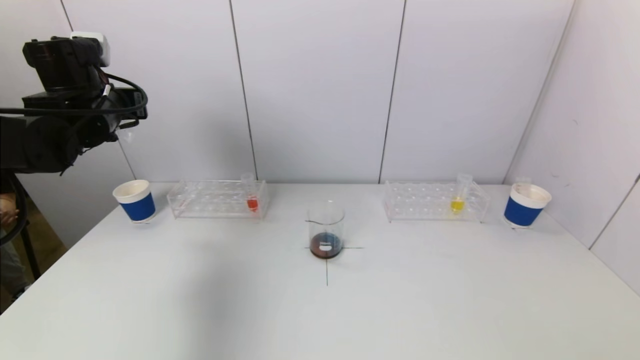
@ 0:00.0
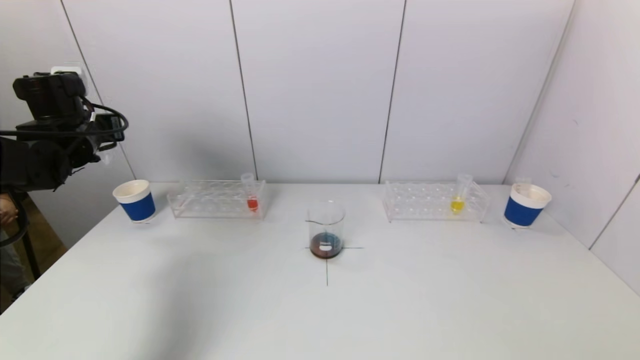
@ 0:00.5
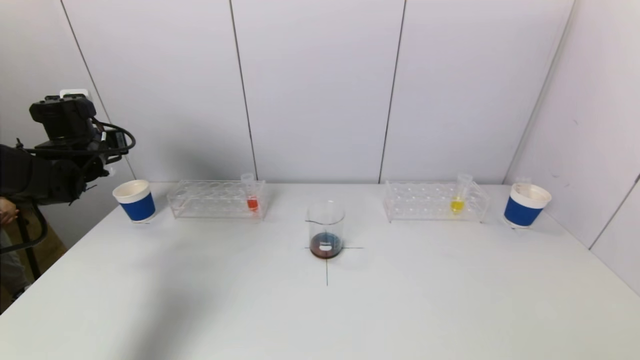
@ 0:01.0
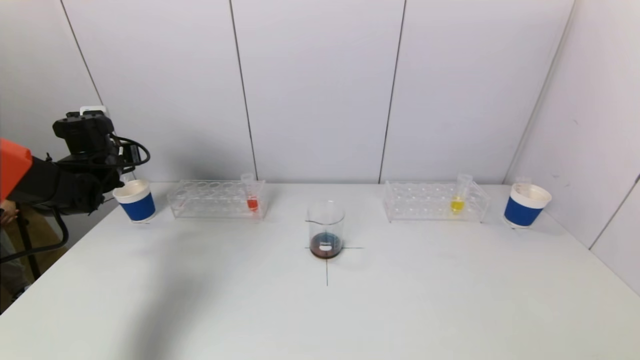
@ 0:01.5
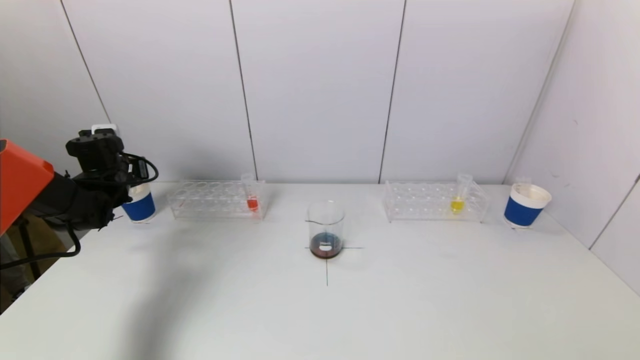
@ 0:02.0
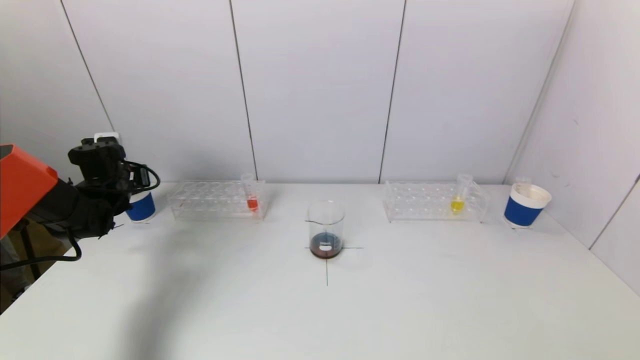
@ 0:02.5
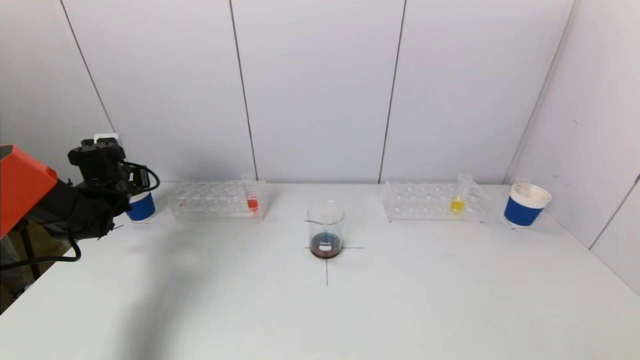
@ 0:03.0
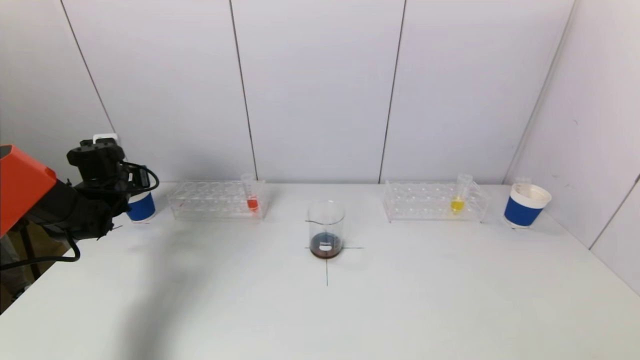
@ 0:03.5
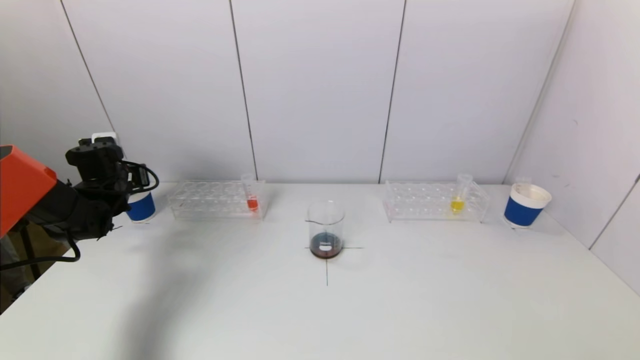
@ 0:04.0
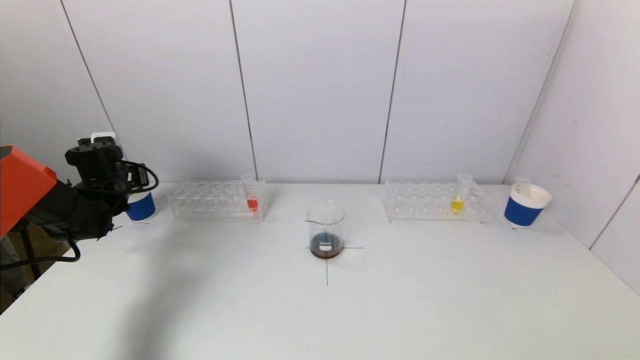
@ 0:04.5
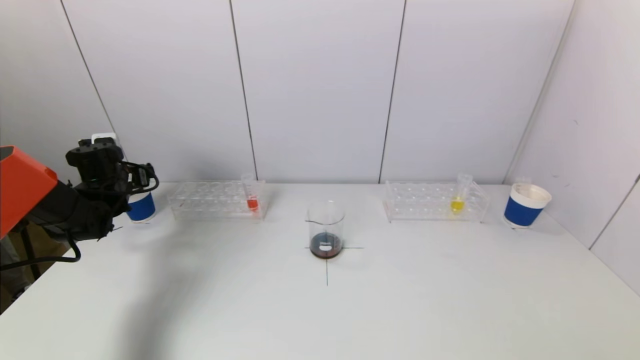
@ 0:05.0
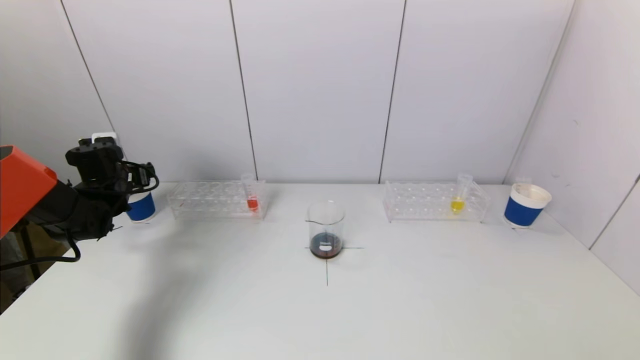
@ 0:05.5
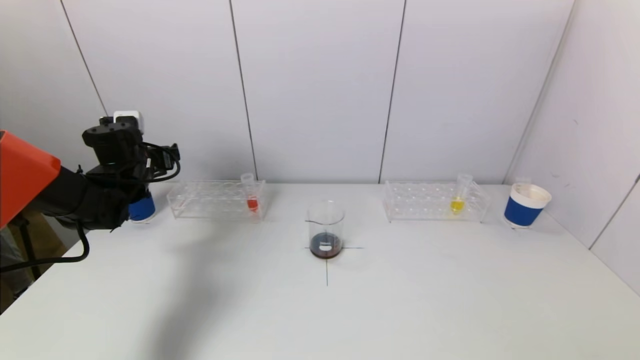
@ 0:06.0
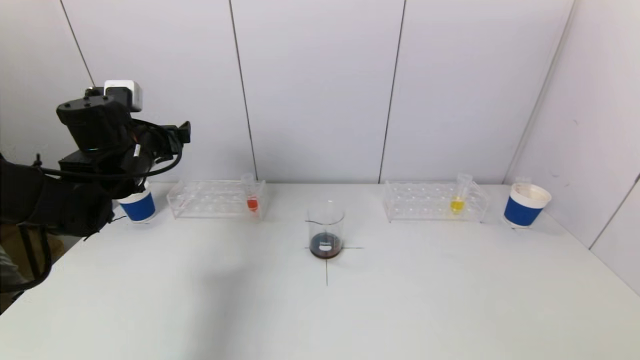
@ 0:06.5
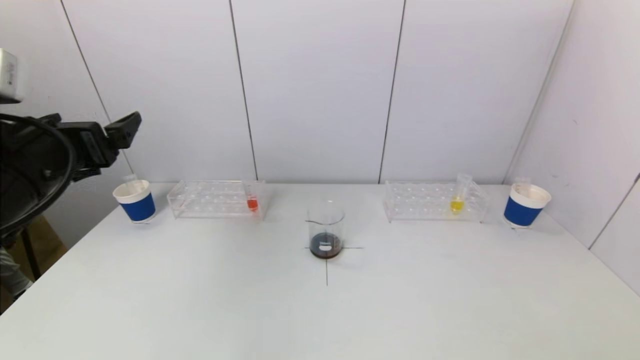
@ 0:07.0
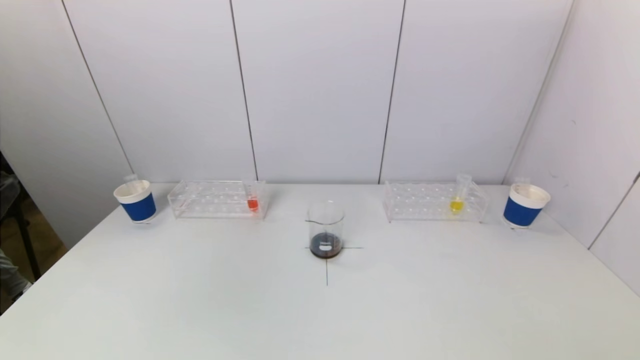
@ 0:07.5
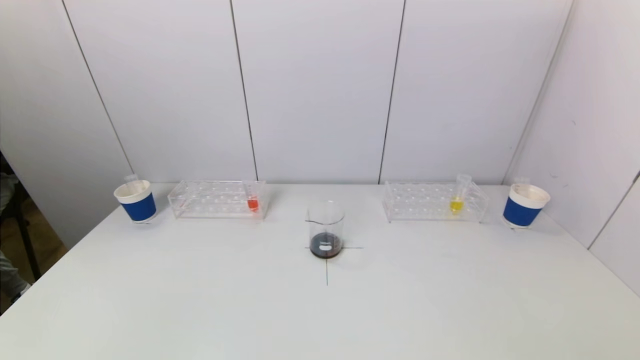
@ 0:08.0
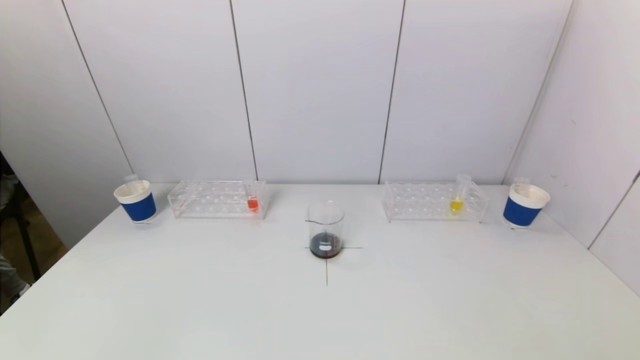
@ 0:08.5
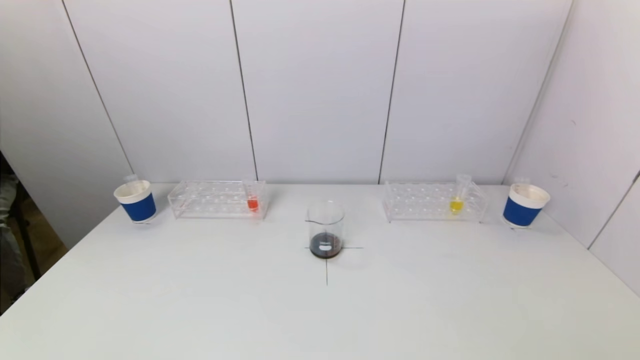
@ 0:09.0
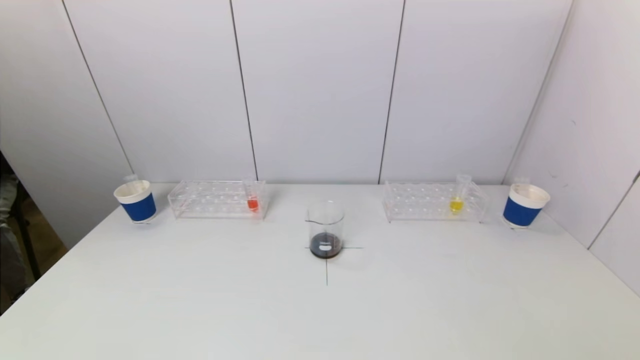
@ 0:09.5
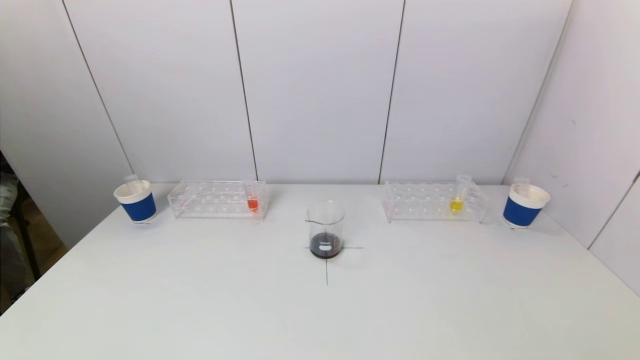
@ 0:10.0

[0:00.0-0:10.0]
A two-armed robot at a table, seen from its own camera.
Task of the whole recording: pick up a test tube with pigment on left test tube rack and a test tube with pigment on right test tube rack by grippers and pour them into the beaker.
Step, 0:00.0 to 0:04.5: Place the test tube into the paper cup with the left gripper.
0:00.0 to 0:02.0: The left gripper moves downward and to the left, approximately 15 cm.
0:02.0 to 0:04.0: There are only small adjustments of the grippers.
0:04.0 to 0:06.0: The left gripper shifts some 5 cm to the right, and opens.
0:06.0 to 0:08.0: The left gripper goes about 40 cm backward.

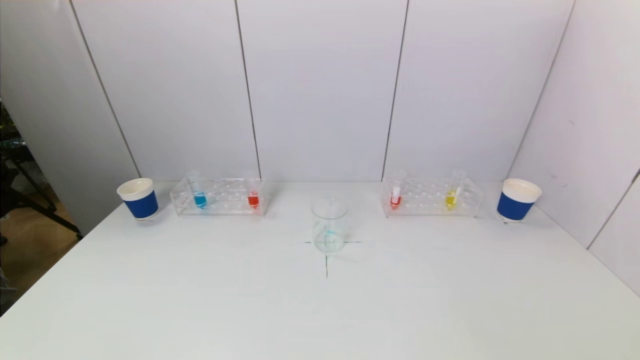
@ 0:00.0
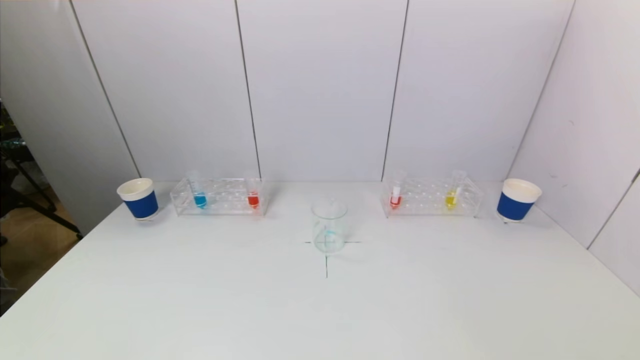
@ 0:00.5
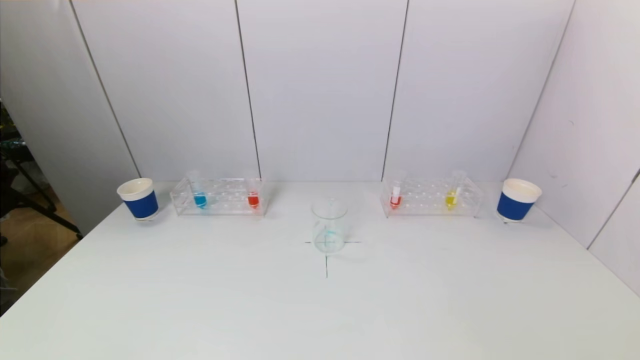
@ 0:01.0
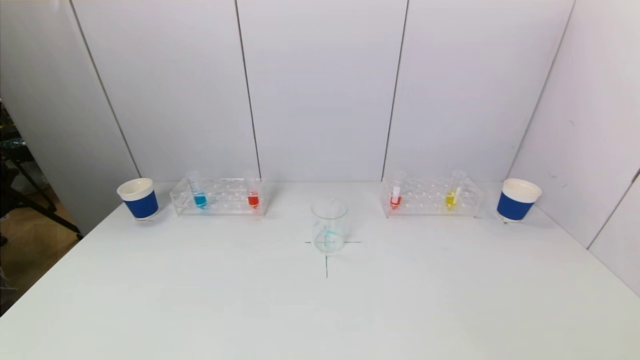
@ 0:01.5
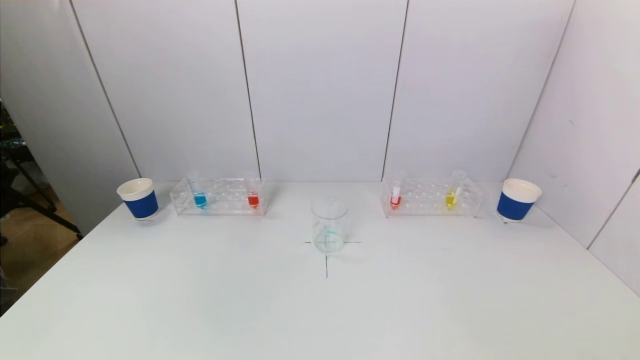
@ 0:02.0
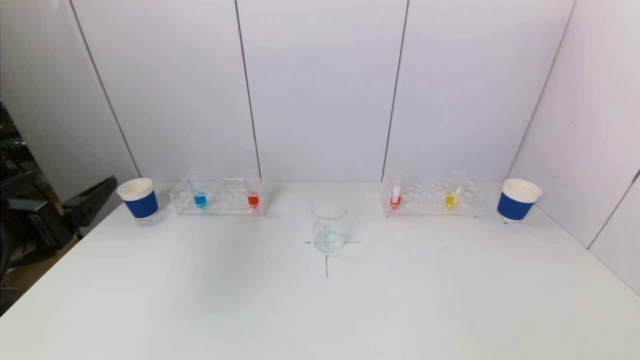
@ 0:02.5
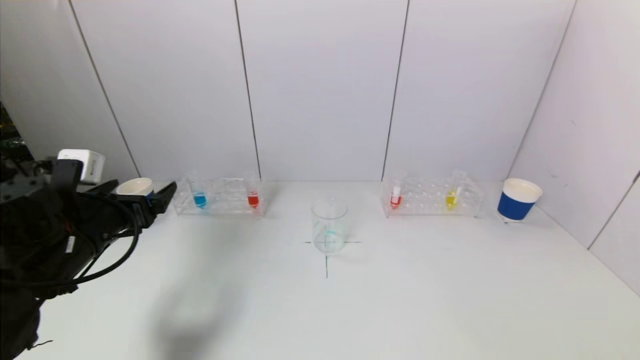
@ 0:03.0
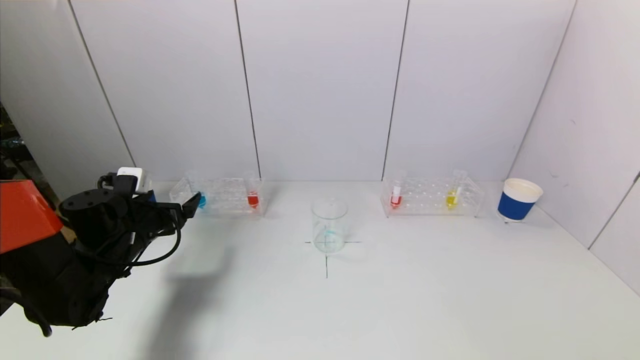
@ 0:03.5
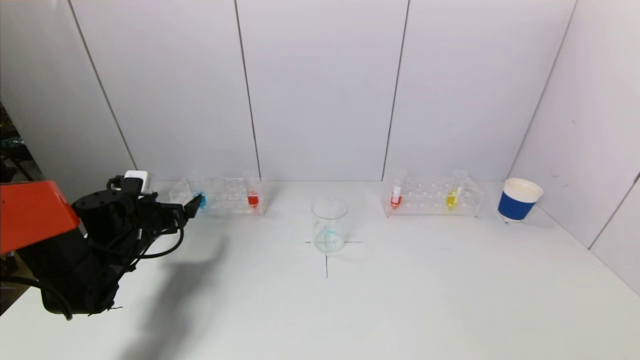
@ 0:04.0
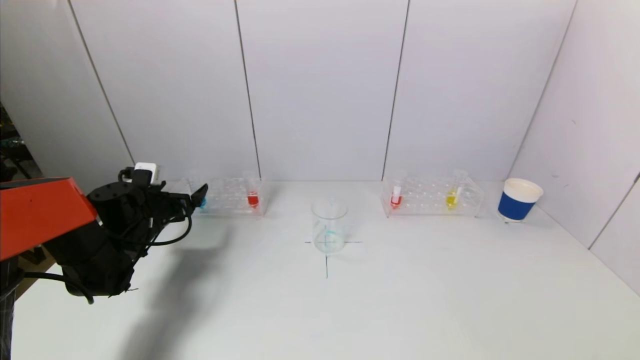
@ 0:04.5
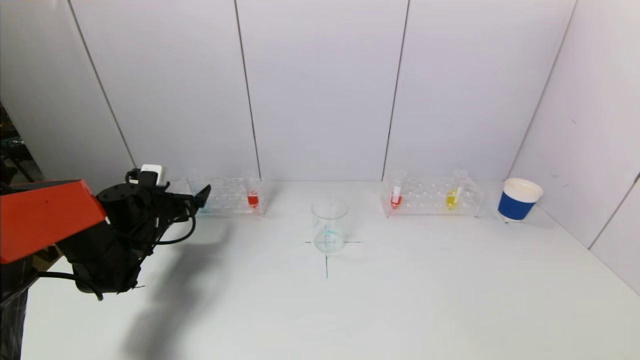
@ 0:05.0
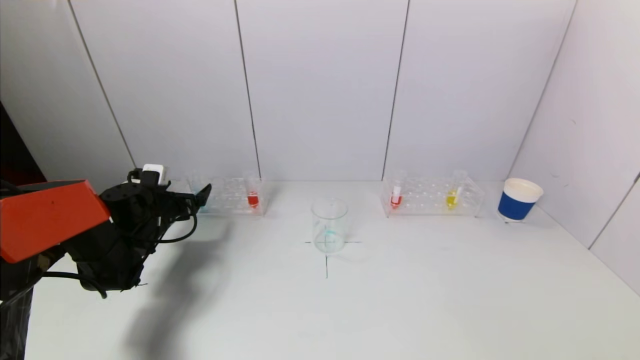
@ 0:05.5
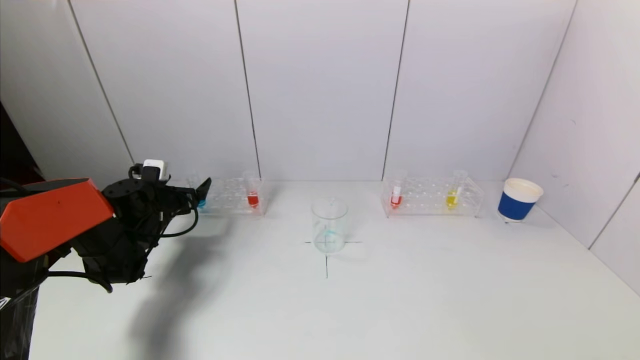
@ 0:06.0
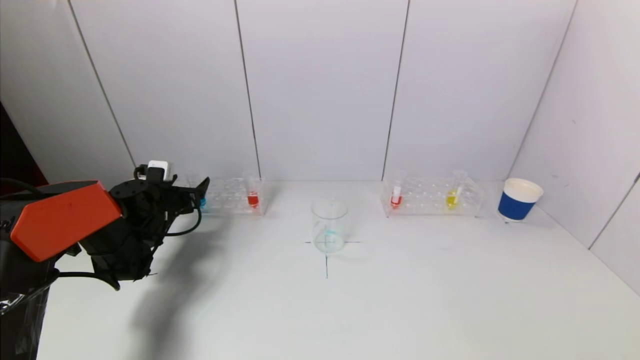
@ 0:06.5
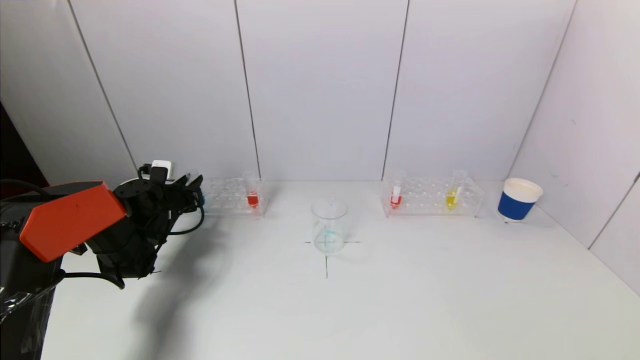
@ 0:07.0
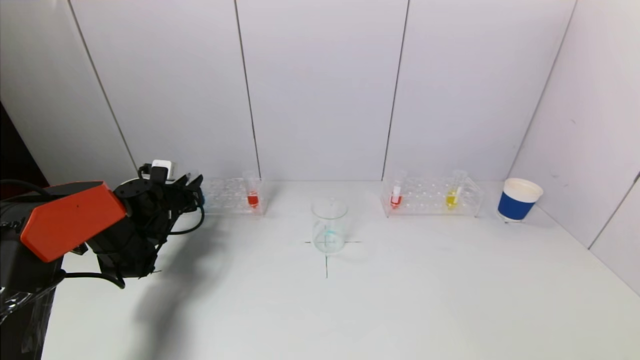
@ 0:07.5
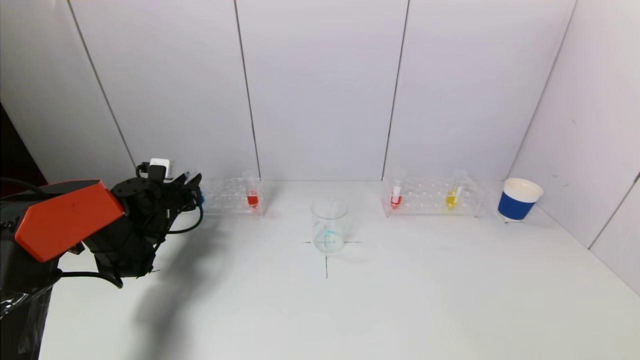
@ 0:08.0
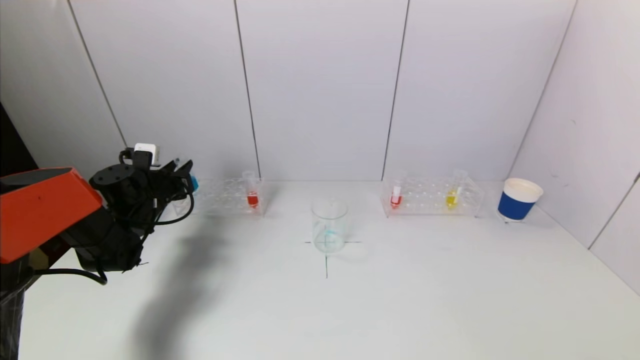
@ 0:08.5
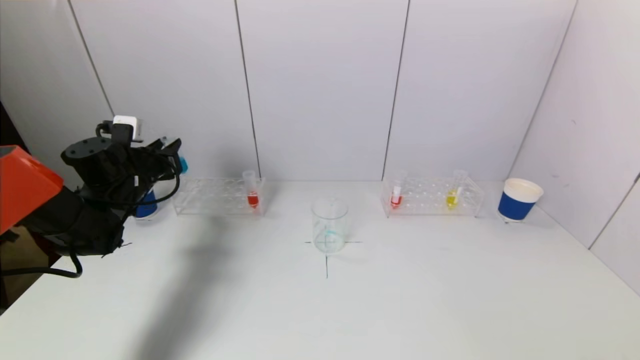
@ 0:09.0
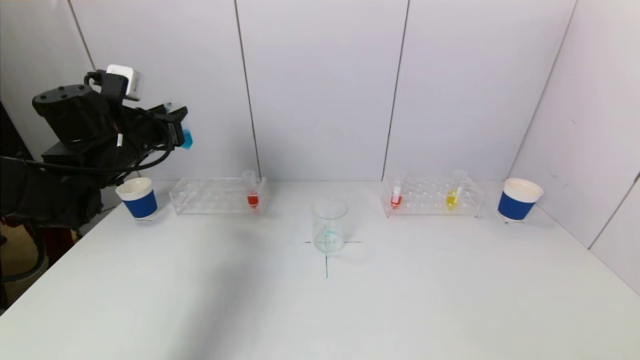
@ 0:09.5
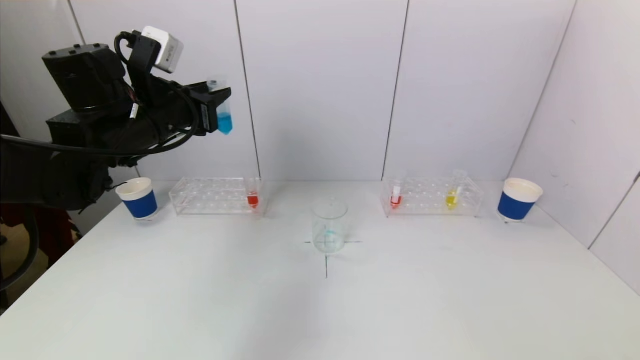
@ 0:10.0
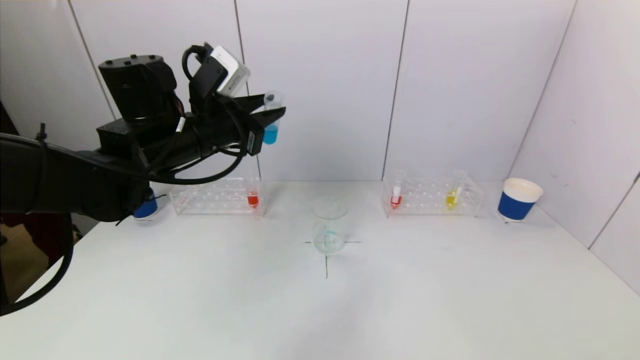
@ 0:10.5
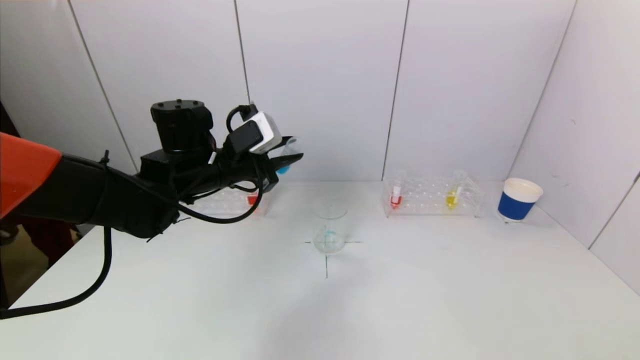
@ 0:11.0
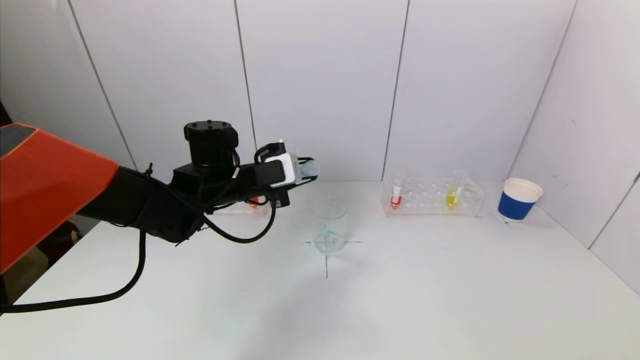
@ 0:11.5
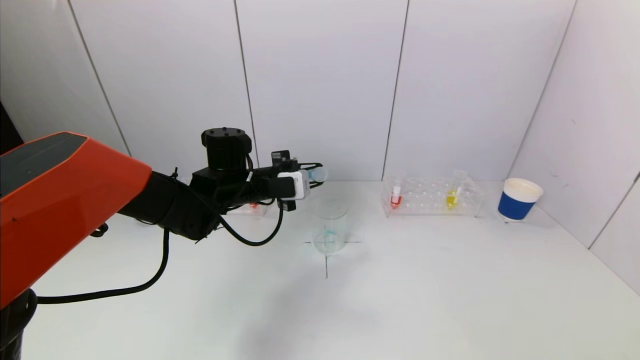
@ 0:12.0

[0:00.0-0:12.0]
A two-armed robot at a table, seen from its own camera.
Task of the whole recording: pick up a test tube with pigment on left test tube rack and a test tube with pigment on right test tube rack by grippers and pour them into the beaker.
Step, 0:00.0 to 0:07.0: Grasp the blue reagent with the left gripper.
0:02.0 to 0:04.0: The left gripper goes approximately 35 cm forward and downward.
0:04.0 to 0:06.0: The left gripper moves forward, roughly 5 cm.
0:06.0 to 0:08.0: The left gripper closes up.
0:08.0 to 0:10.0: The left gripper travels upward, to the right and backward by about 25 cm.
0:10.0 to 0:12.0: The left gripper shifts roughly 15 cm downward and to the right.
